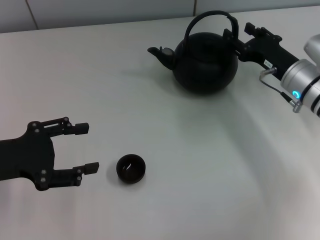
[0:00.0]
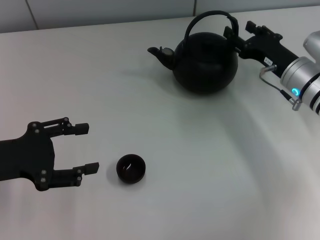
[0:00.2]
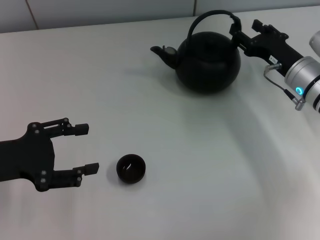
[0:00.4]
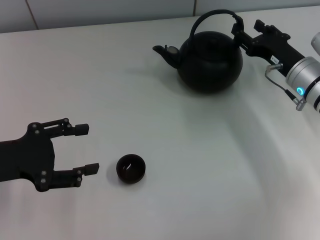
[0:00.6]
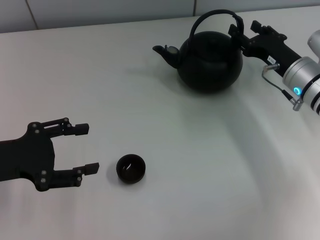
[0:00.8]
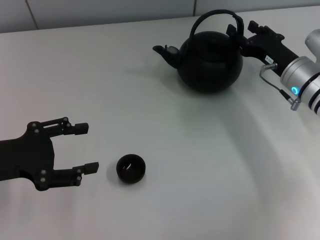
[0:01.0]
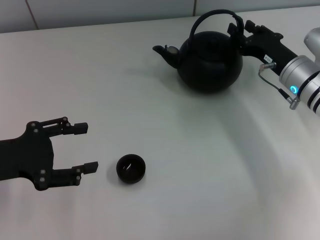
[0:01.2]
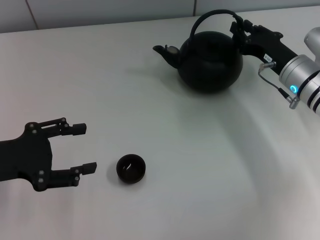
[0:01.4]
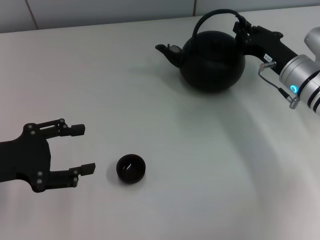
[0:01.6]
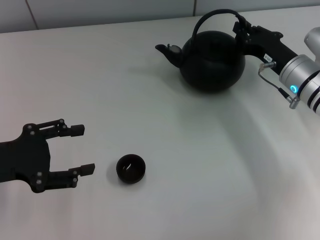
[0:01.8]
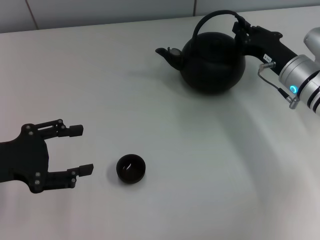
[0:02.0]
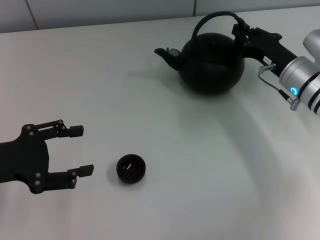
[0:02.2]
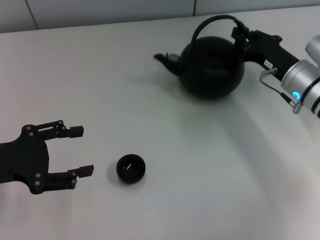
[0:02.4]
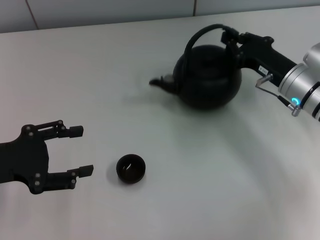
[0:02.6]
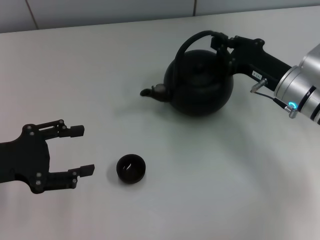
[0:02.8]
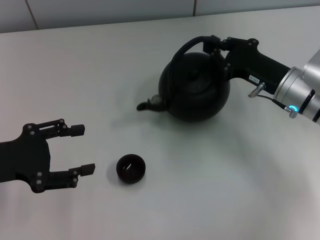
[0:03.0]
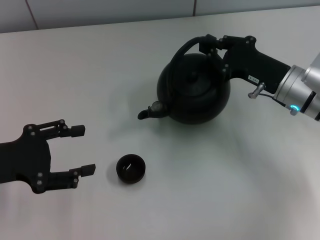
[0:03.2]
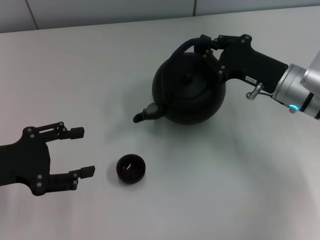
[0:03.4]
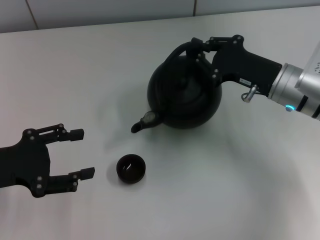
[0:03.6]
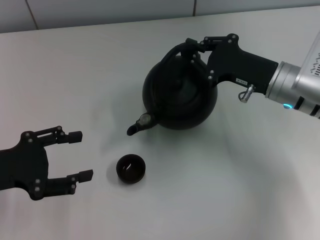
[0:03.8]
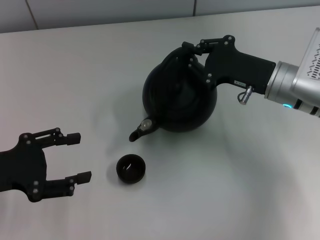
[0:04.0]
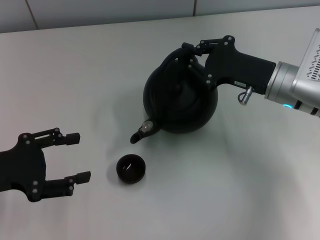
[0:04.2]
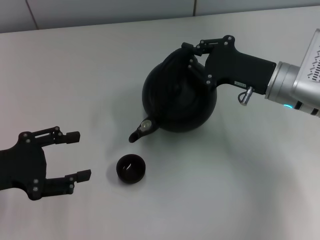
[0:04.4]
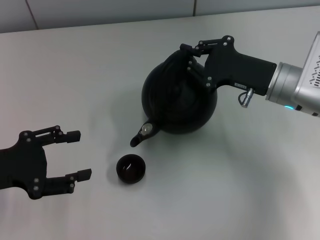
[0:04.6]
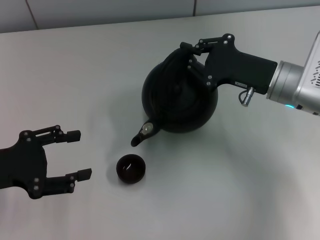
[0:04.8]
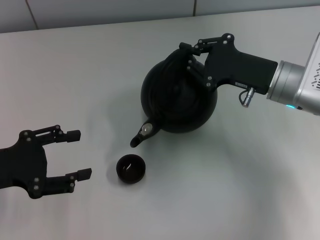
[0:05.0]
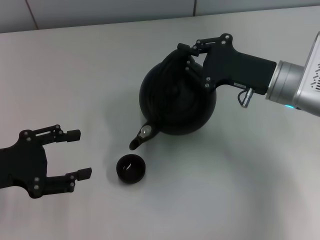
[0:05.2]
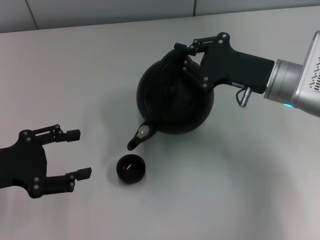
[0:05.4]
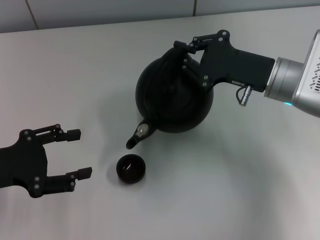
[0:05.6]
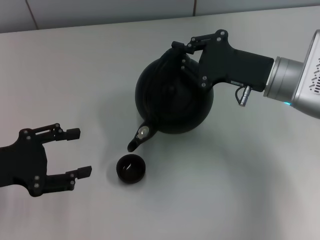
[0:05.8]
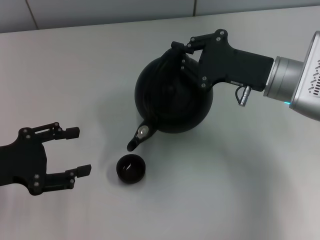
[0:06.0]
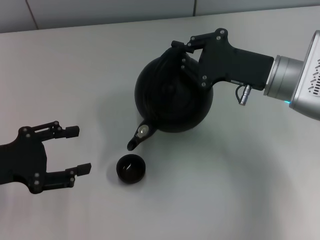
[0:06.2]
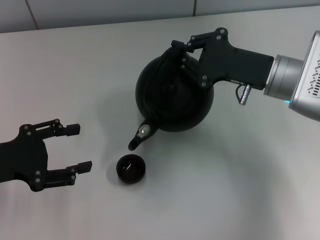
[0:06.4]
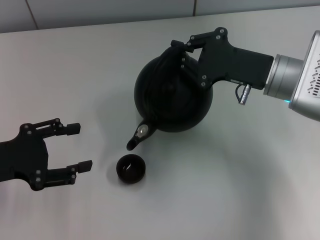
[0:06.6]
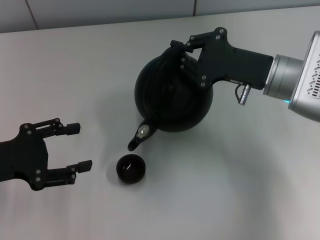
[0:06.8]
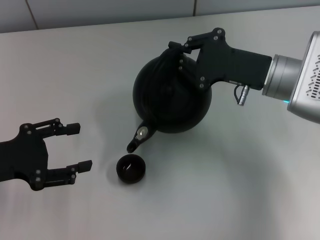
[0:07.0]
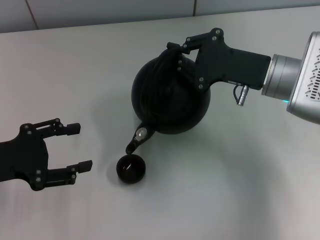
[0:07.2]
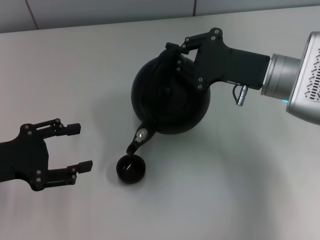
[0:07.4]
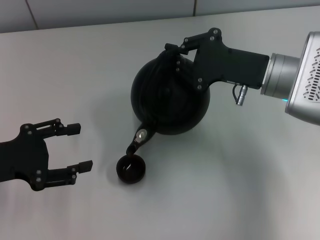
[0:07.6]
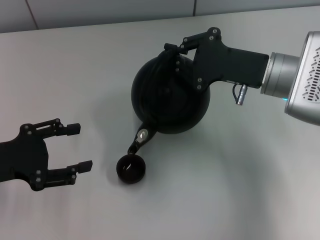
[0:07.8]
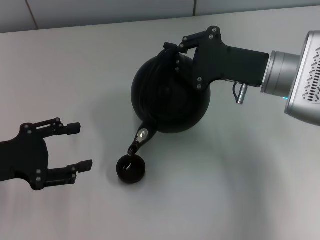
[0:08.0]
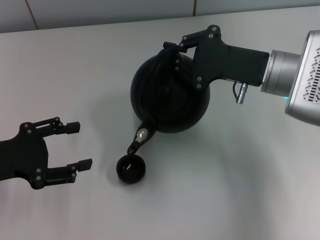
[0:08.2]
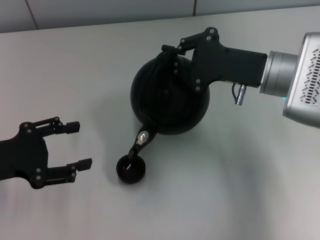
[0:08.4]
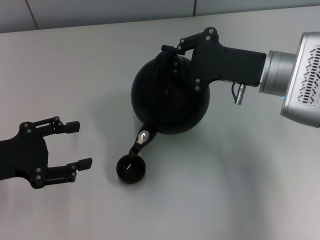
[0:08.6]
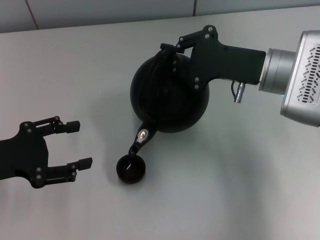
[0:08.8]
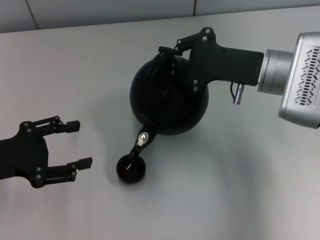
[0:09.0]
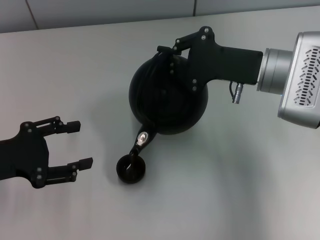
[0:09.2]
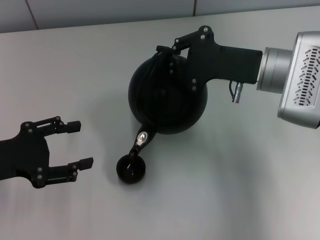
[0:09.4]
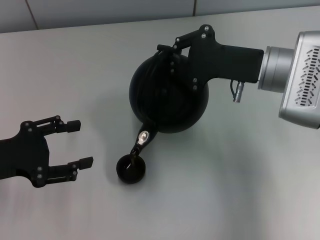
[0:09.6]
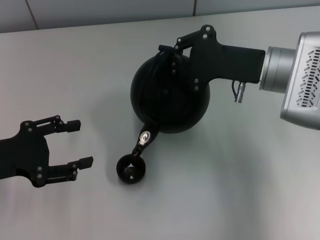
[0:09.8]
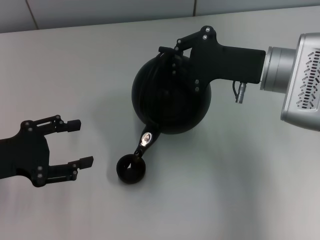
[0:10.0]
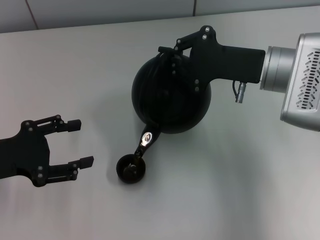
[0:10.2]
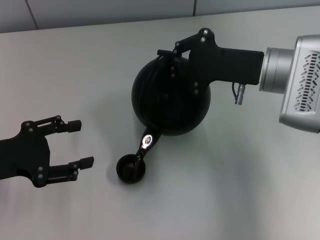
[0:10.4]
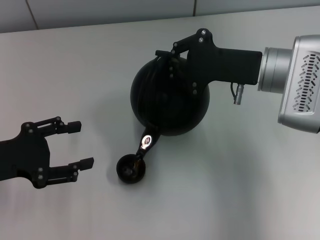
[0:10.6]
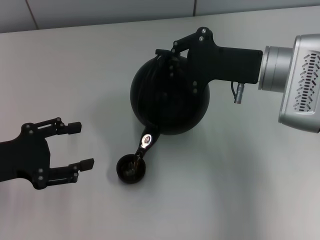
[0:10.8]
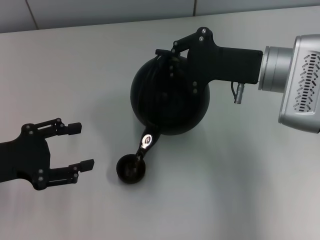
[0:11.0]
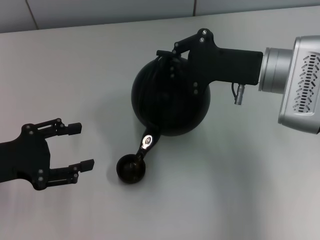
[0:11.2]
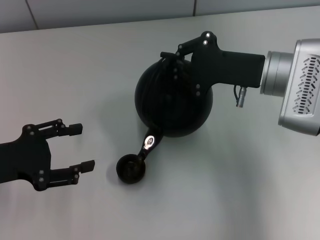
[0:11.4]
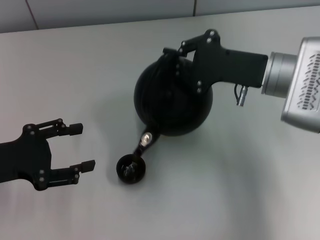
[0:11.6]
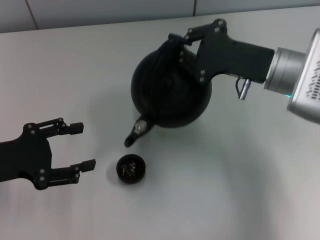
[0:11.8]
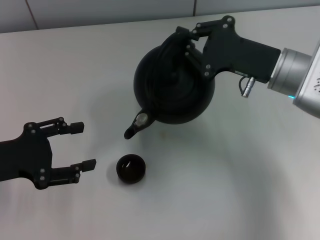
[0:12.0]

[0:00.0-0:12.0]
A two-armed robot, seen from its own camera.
Task of the whole recording: Grasp the handle of the teapot with one hand and pour tea into the teacup.
Step, 0:00.0 to 0:03.2: Pick up the teapot with the right gripper.
0:00.0 to 0:01.6: The right gripper closes its fingers.
0:03.0 to 0:04.4: The grippers move only a little.
0:04.4 to 0:07.6: There are only small adjustments of the grippers.
0:07.6 to 0:10.4: The grippers make only small movements.

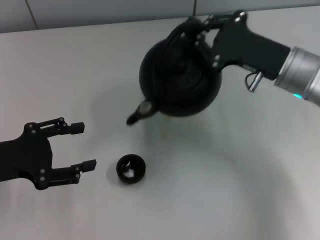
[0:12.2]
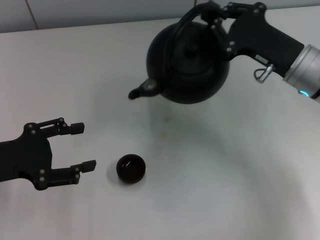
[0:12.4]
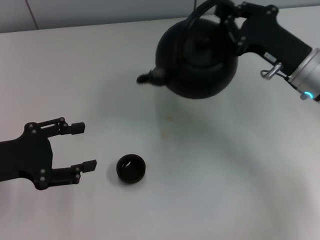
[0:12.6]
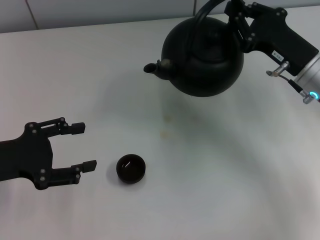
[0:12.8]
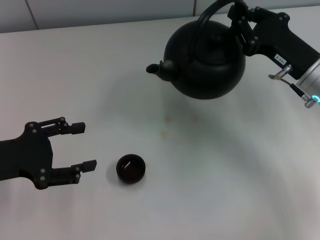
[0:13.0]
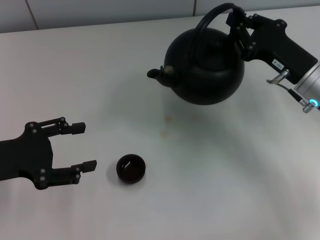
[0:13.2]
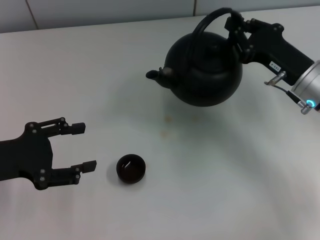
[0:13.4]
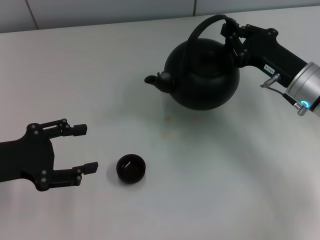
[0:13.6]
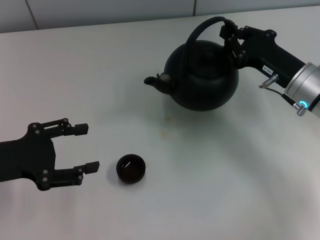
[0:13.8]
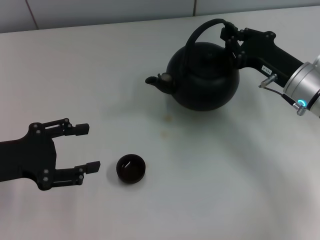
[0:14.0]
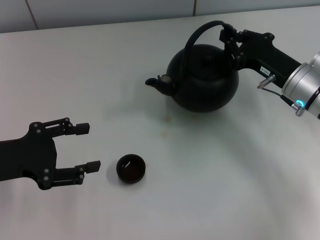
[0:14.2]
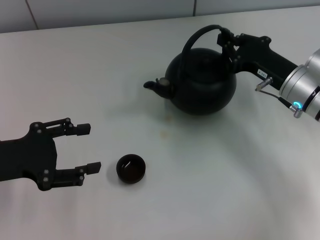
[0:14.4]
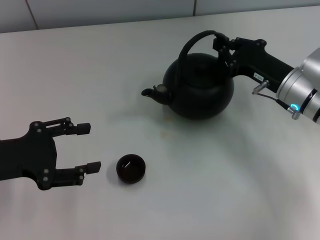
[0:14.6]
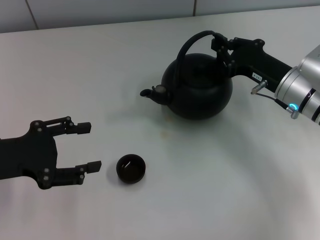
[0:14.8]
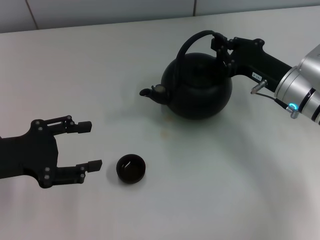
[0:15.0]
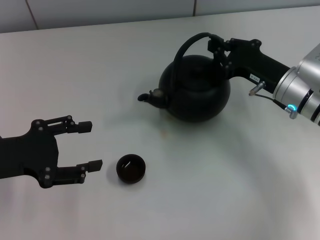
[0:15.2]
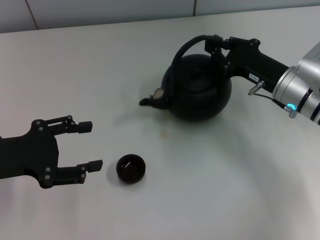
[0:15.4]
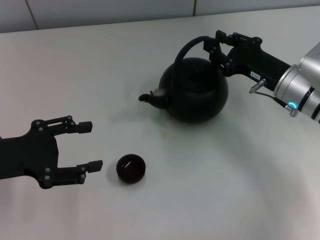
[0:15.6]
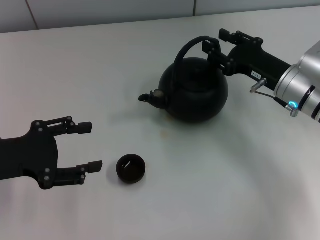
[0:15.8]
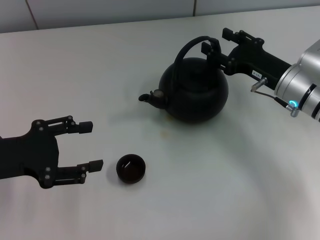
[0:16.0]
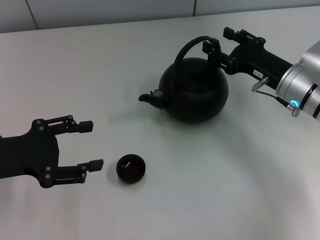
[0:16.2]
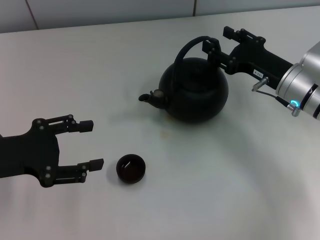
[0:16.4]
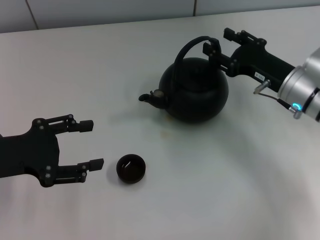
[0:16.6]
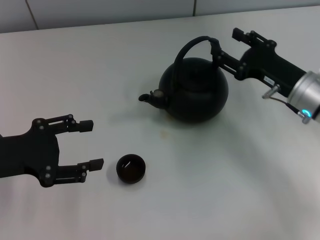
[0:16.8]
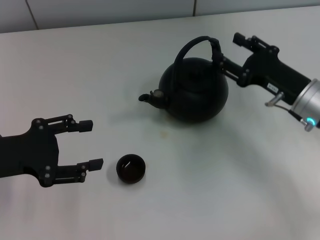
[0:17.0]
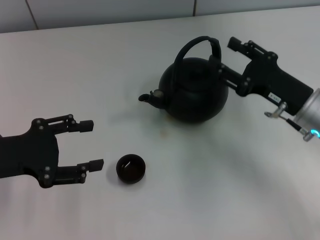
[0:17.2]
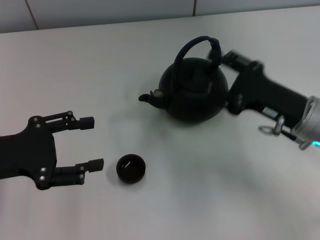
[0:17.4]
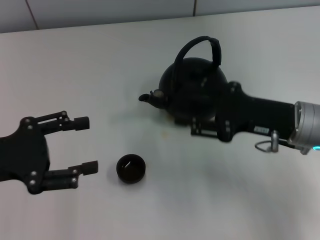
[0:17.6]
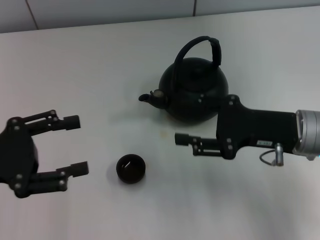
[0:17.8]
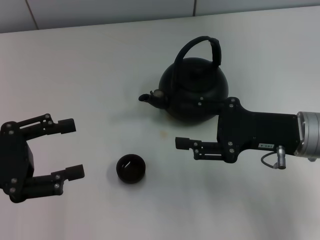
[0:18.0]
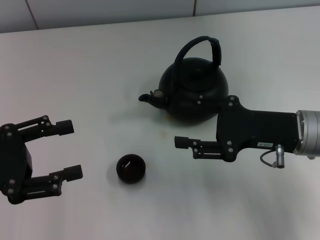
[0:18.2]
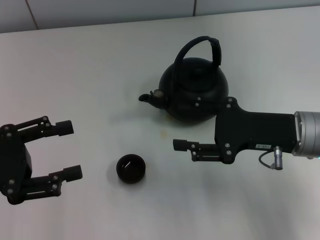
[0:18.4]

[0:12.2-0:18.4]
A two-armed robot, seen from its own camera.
Task of the whole recording: Grasp the handle of the teapot with one hand and pour tea into the teacup.
Step, 0:12.2 to 0:17.6: Put down the teapot with the right gripper.
0:12.2 to 0:13.8: The right gripper shifts by about 5 cm.
0:13.8 to 0:15.4: The grippers make only small movements.
0:15.4 to 0:16.8: The right gripper opens up.
0:16.8 to 0:18.4: The right gripper heads backward, covering about 5 cm.
